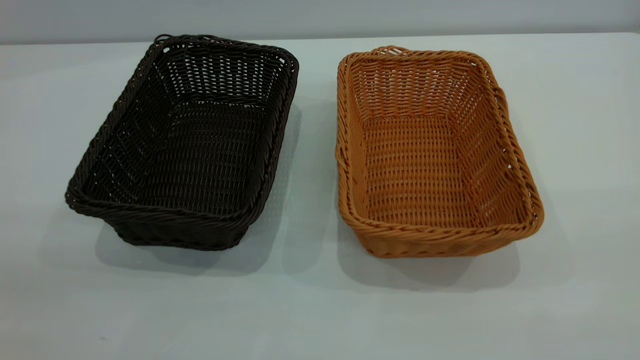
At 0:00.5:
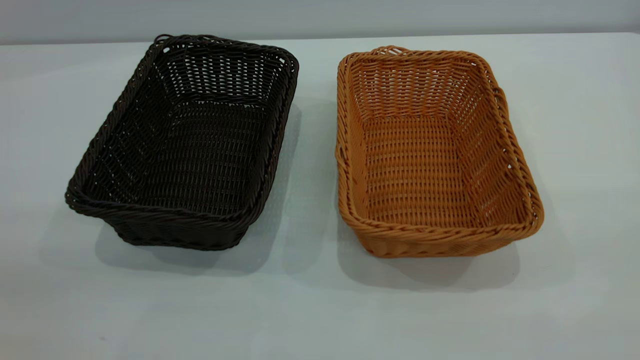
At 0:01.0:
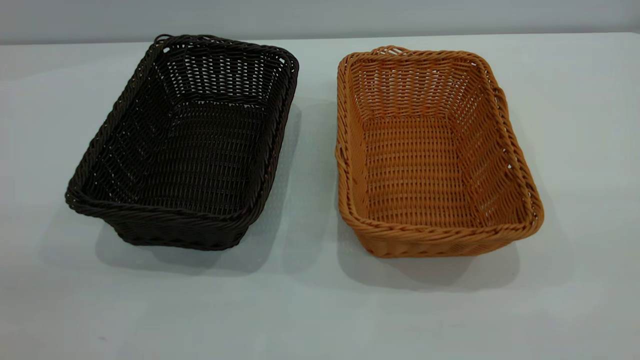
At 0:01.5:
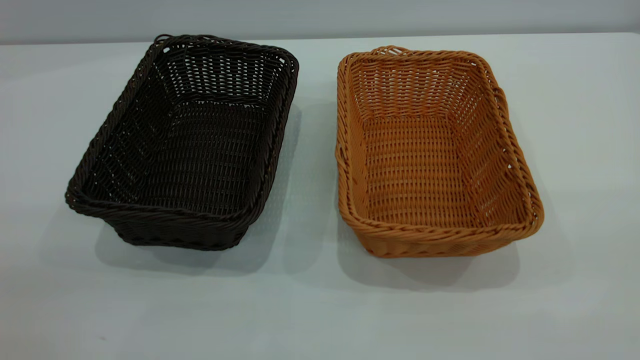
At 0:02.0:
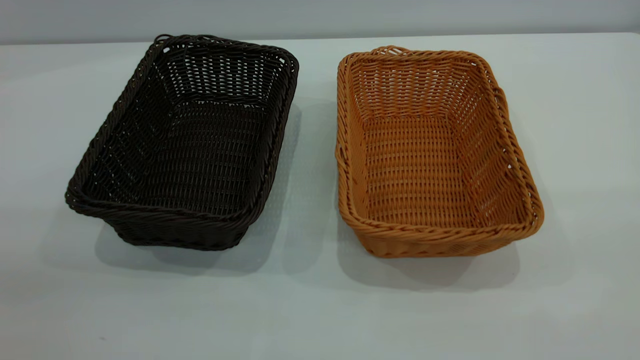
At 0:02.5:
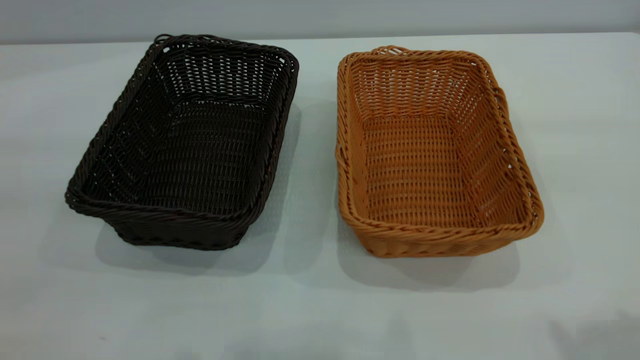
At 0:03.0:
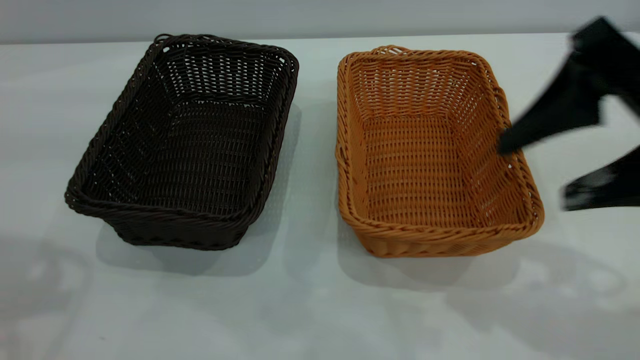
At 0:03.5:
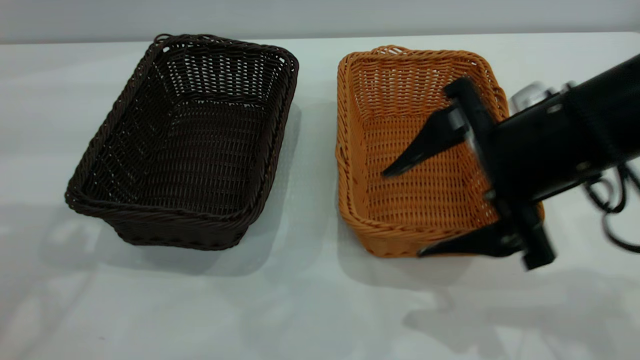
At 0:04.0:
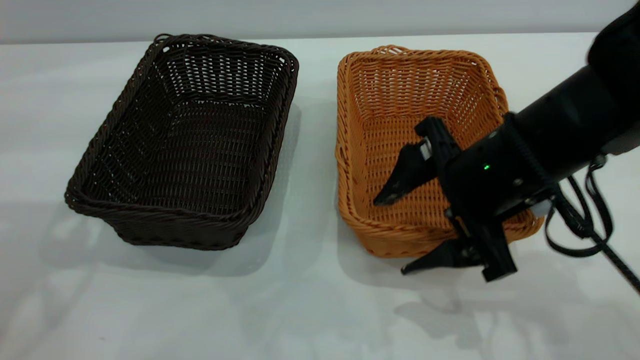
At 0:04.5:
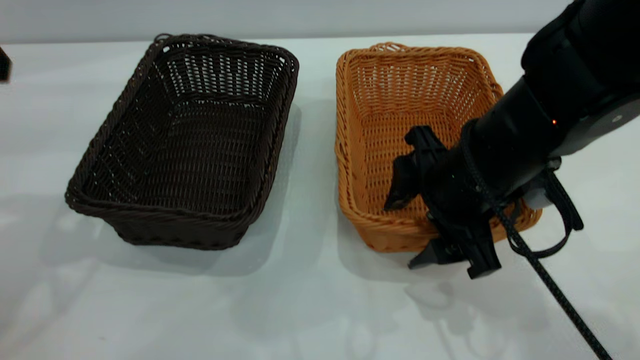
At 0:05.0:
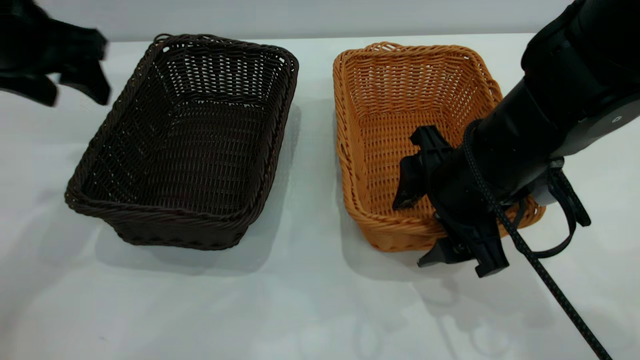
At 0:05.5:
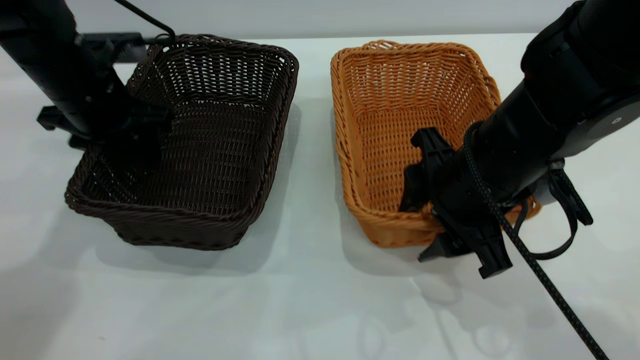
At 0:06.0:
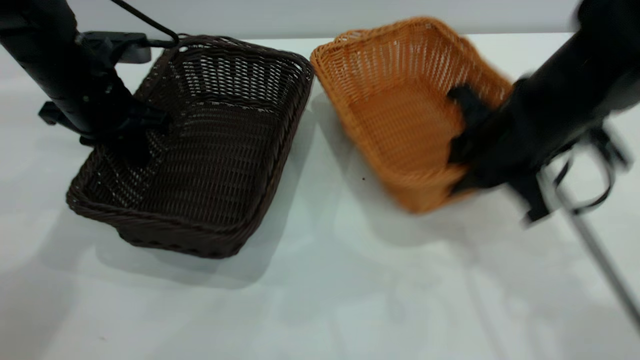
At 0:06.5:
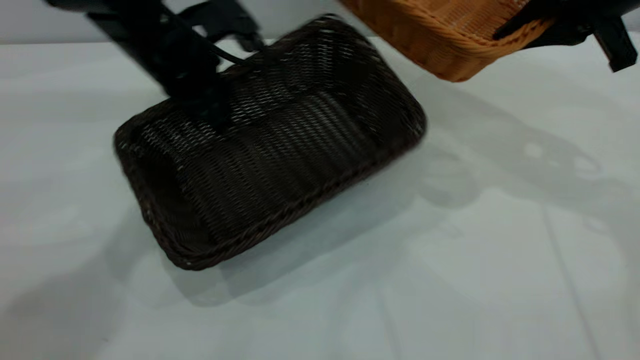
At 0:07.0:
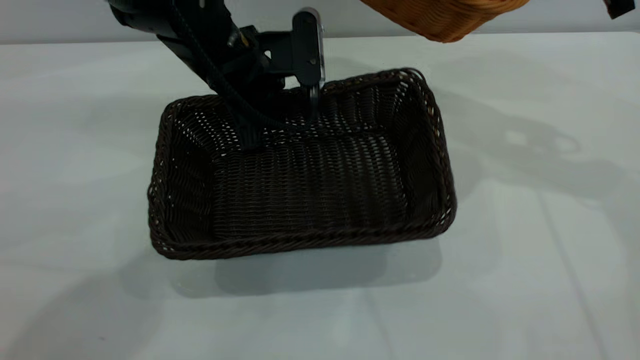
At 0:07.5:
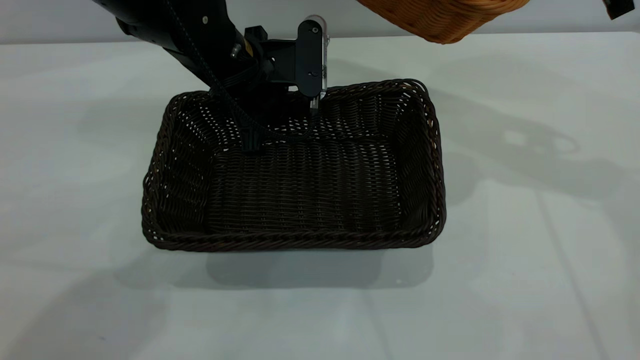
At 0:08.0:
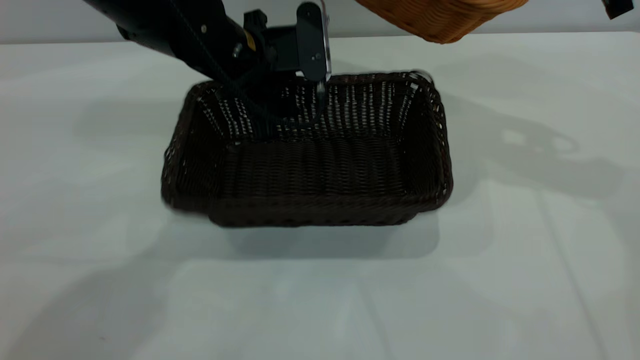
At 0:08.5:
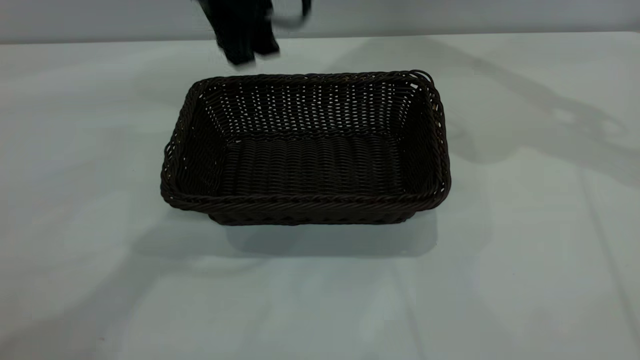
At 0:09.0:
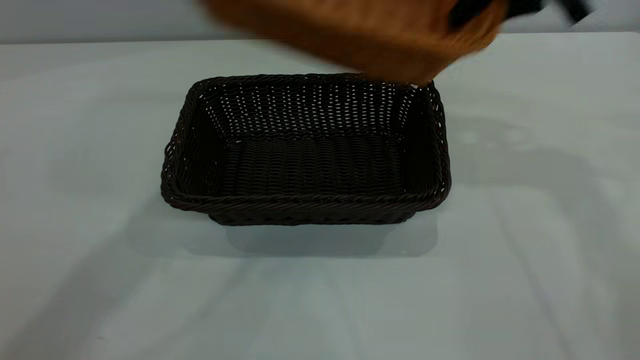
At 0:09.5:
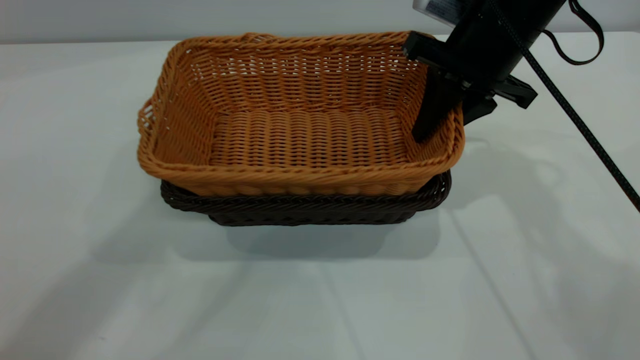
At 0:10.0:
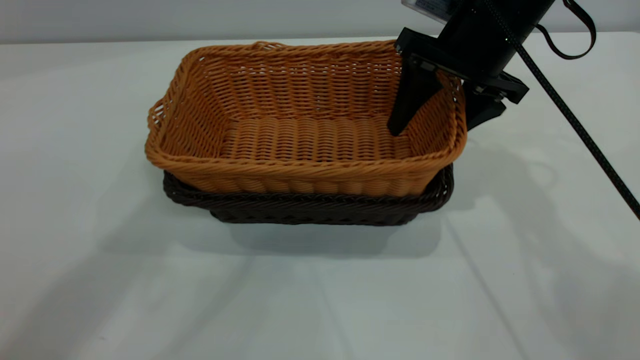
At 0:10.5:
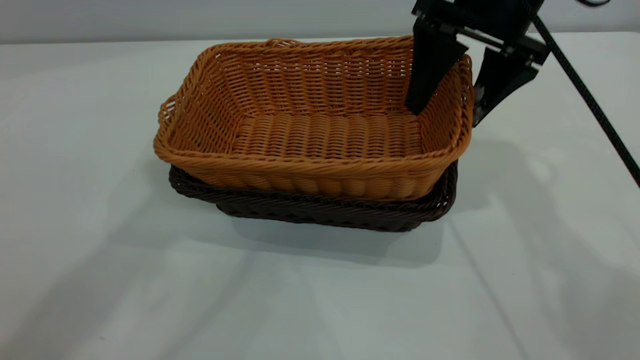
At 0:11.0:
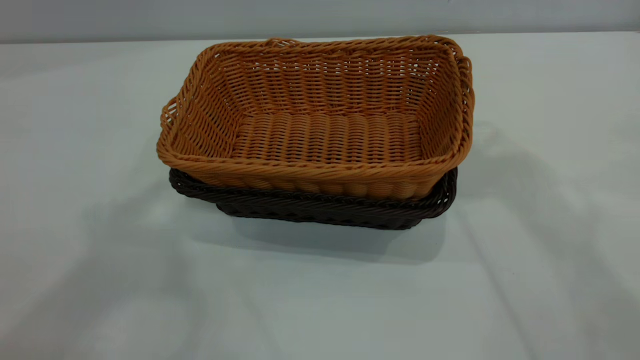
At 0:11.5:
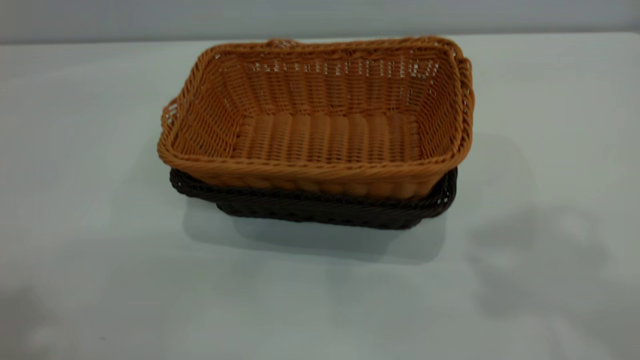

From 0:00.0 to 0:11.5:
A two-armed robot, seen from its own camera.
Task of the whole recording: the left gripper grasp the black basket and place it in the center of the table, the right gripper grasp the brown basket and place it inside the black one.
Step, from 0:00.0 to 0:06.0: Pick up the light basket with the right gripper.
Step, from 0:06.5 to 0:08.0: Move the dark basket to the center of view.
Step, from 0:08.5 to 0:10.5: Place the light basket on the dark basket.
From 0:02.0 to 0:04.0: The left gripper moves forward, roughly 25 cm; the right gripper shifts about 40 cm forward, downward and to the left.
From 0:04.0 to 0:06.0: The left gripper is displaced downward and forward by approximately 20 cm, and closes up, while the right gripper changes place by approximately 5 cm, and closes its fingers.
From 0:06.0 to 0:07.5: The right gripper is displaced upward, forward and to the right by approximately 15 cm; the left gripper heads to the right, covering roughly 15 cm.
From 0:07.5 to 0:09.5: The left gripper heads upward, covering about 35 cm, and opens up, while the right gripper travels downward and to the left by approximately 15 cm.
From 0:09.5 to 0:11.5: The left gripper goes roughly 20 cm backward and to the left; the right gripper is displaced upward and backward by approximately 35 cm, and opens up.

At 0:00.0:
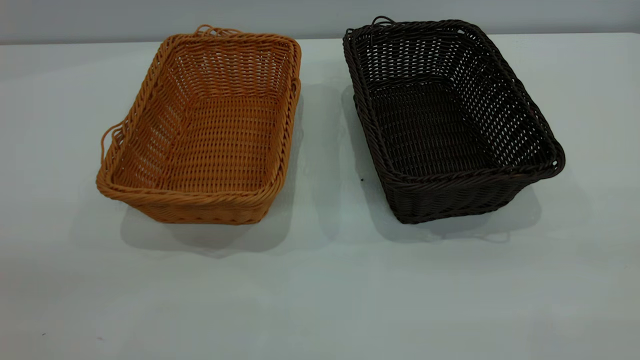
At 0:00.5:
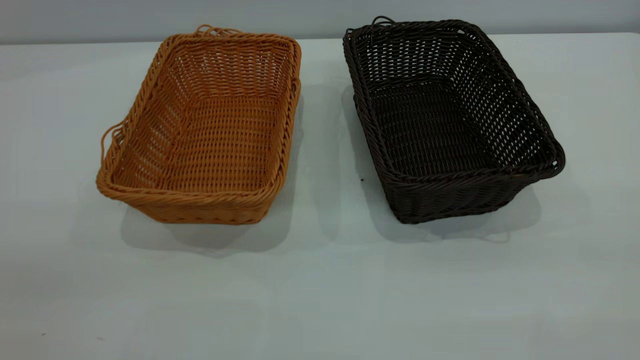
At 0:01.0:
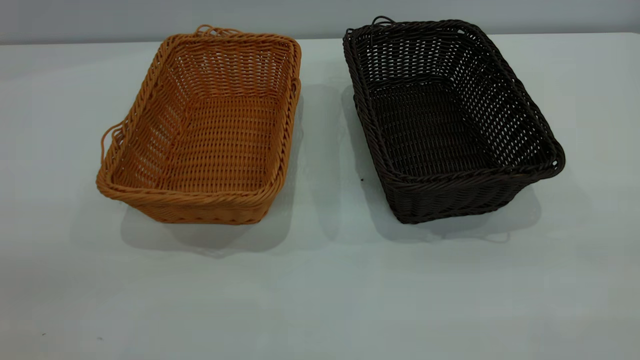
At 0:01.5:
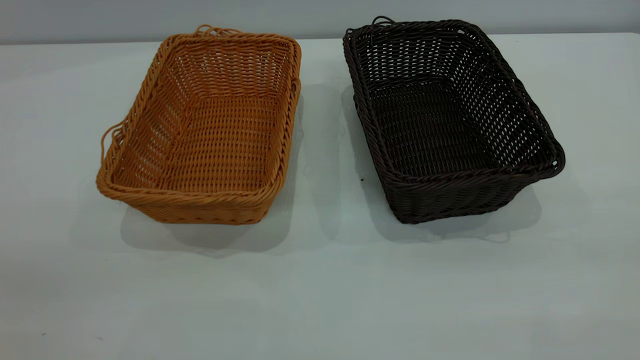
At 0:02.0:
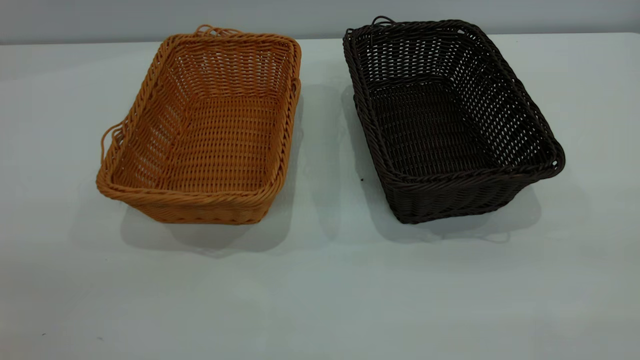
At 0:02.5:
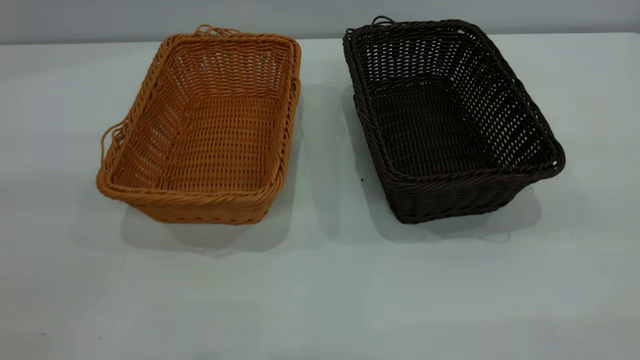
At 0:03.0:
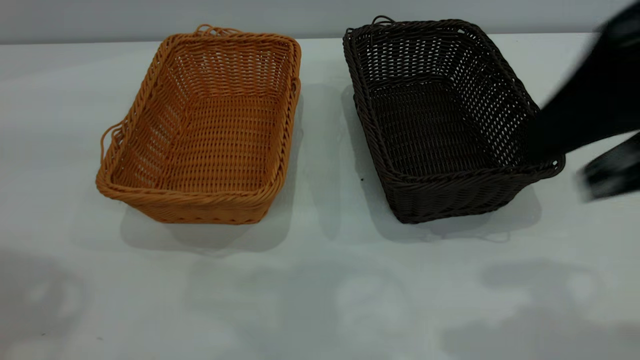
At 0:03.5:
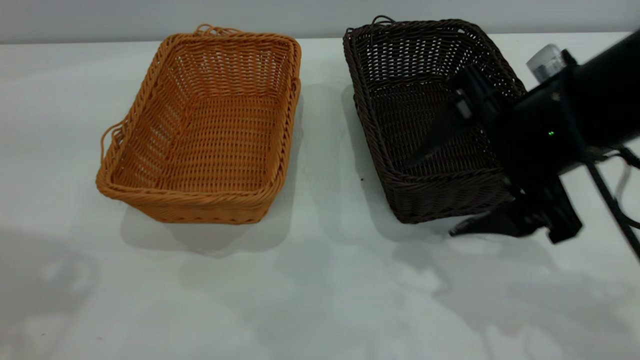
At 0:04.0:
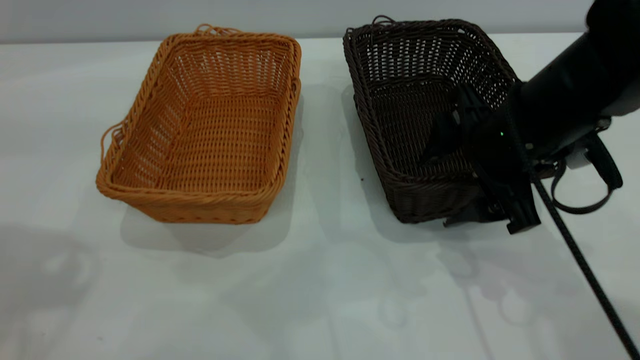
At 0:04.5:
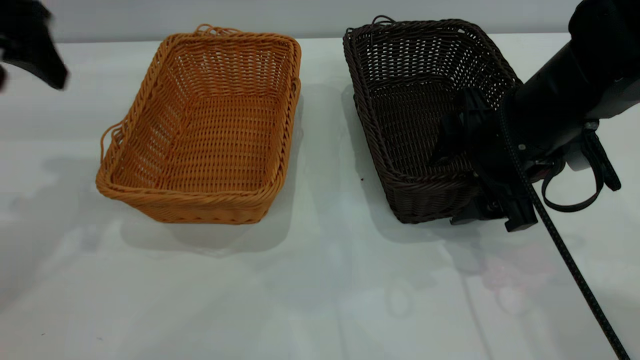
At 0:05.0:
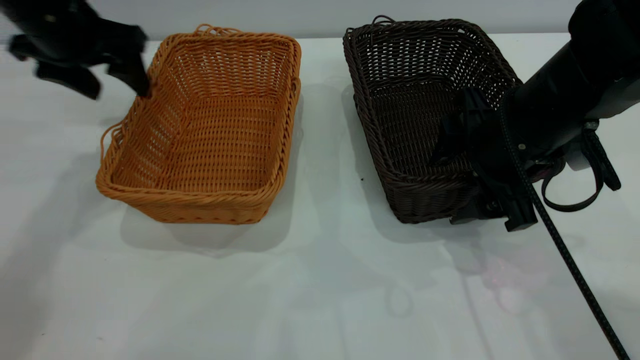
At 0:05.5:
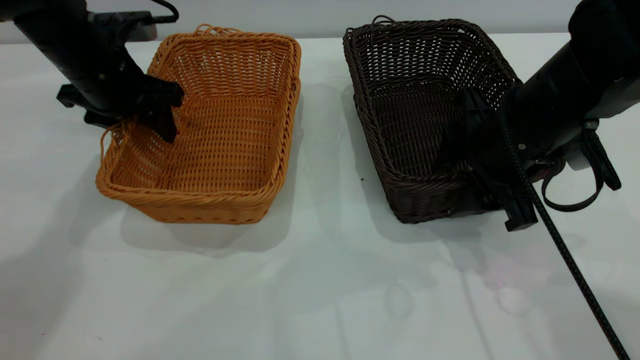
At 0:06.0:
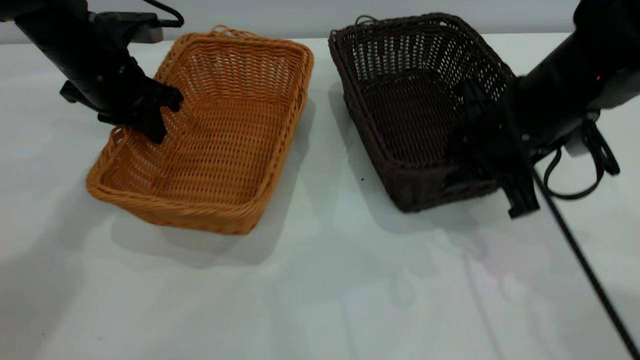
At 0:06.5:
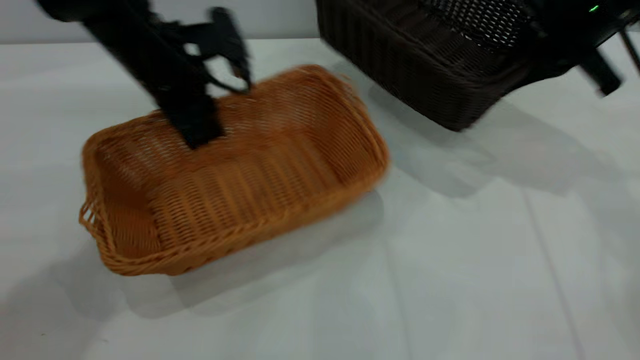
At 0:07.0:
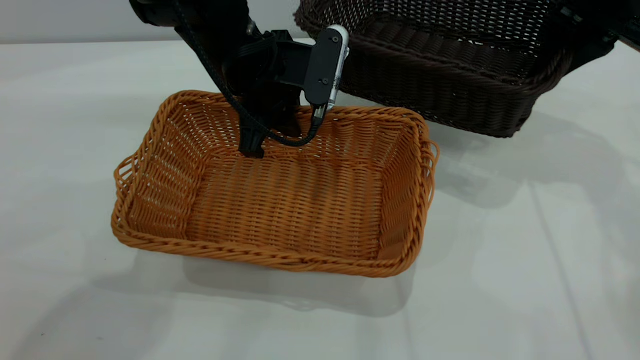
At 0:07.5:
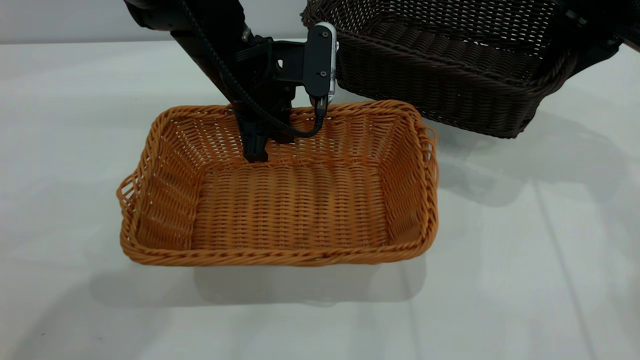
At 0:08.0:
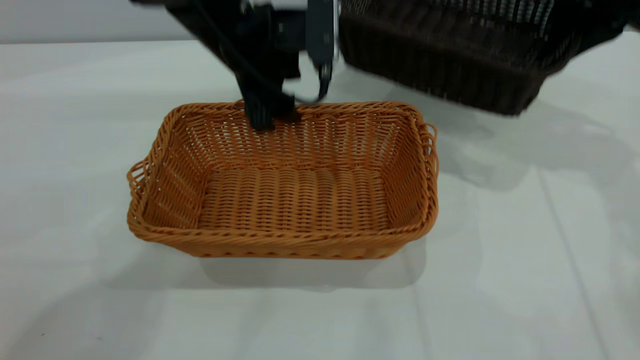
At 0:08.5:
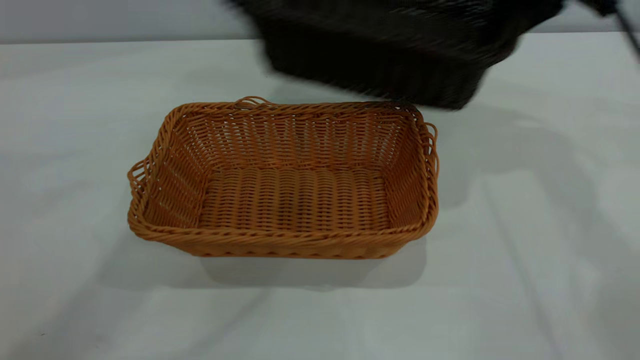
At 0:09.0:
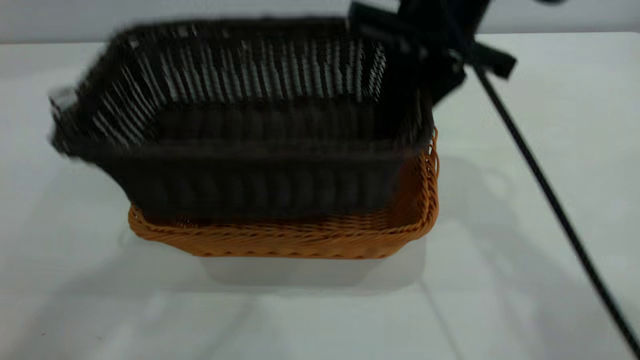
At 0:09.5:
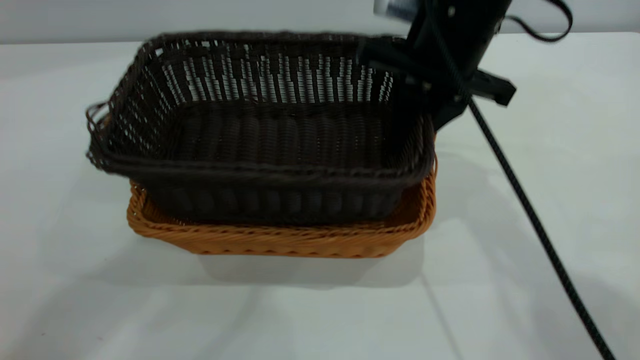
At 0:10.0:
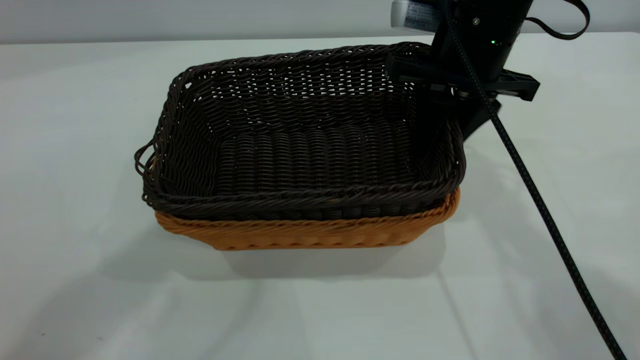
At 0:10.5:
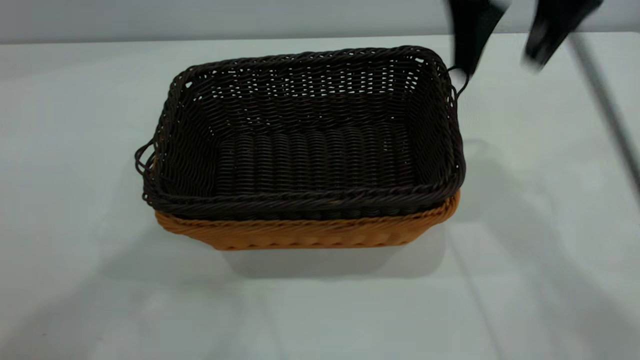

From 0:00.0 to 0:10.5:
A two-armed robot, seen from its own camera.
Task of the whole recording: the left gripper grasp the brown basket and place it in the center of the table, the right gripper grasp the black basket and place it inside the brown one.
Step, from 0:00.0 to 0:06.0: Pick up the light basket with the right gripper.
Step, from 0:06.5 to 0:08.0: Place the light-colored basket in the center.
Step, from 0:08.5 to 0:10.0: Place the dark basket on top of the light basket.
From 0:00.0 to 0:02.0: Both grippers stay about where they are.
From 0:02.0 to 0:04.0: The right gripper moves forward and downward, some 40 cm, and opens.
From 0:04.0 to 0:06.5: The right gripper heads forward, to the right and upward, covering roughly 15 cm, and closes its fingers. Meanwhile the left gripper is displaced downward, forward and to the right by approximately 30 cm, and closes up.
From 0:06.5 to 0:08.5: The left gripper travels upward by some 30 cm, and opens up. The right gripper travels to the left and upward by about 10 cm.
From 0:08.5 to 0:10.5: The right gripper goes some 10 cm backward and upward, and opens its fingers. Meanwhile the left gripper goes roughly 15 cm upward and backward.
